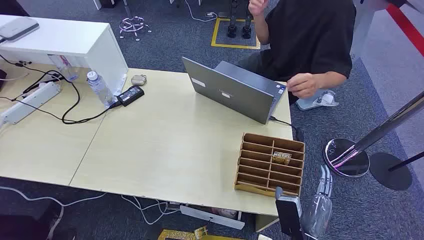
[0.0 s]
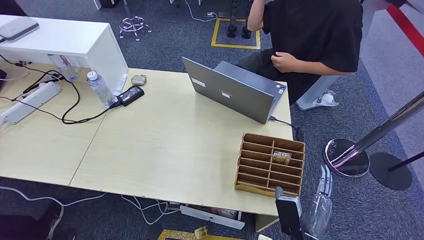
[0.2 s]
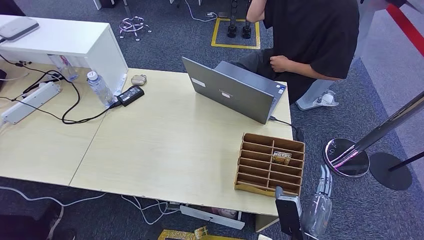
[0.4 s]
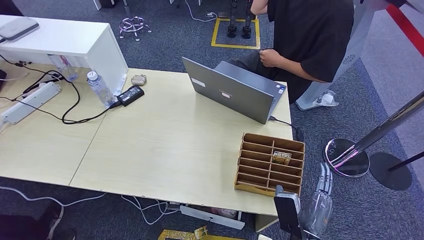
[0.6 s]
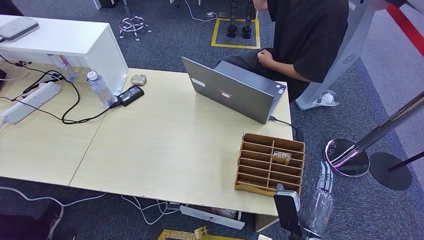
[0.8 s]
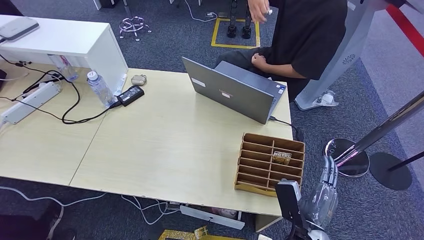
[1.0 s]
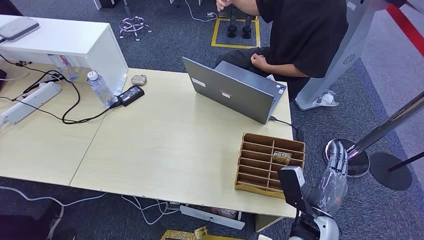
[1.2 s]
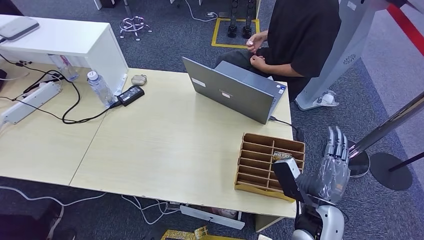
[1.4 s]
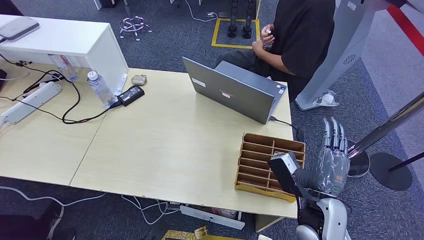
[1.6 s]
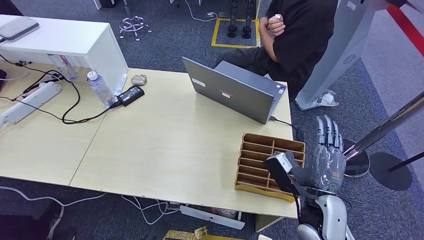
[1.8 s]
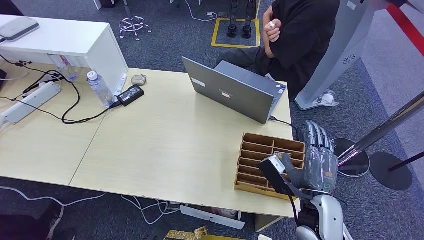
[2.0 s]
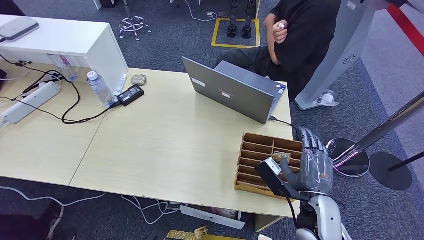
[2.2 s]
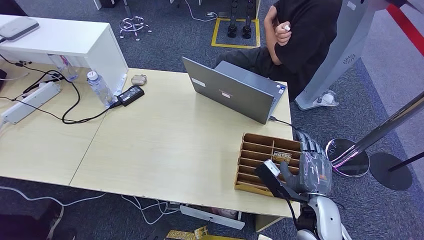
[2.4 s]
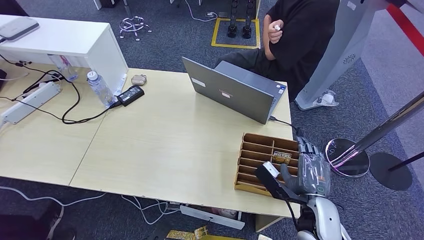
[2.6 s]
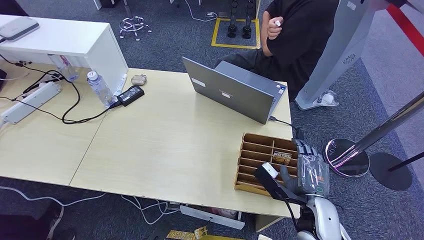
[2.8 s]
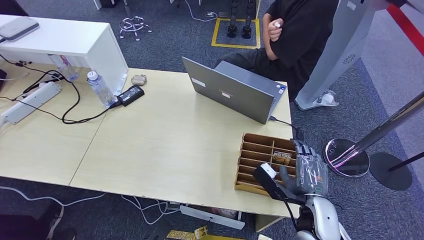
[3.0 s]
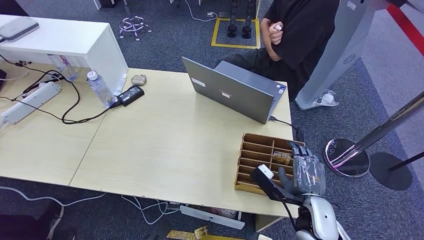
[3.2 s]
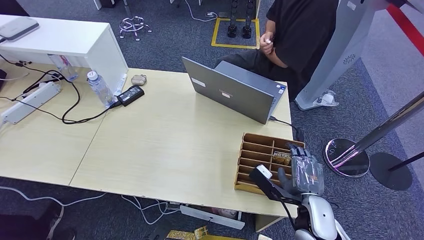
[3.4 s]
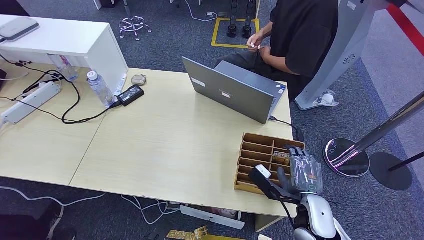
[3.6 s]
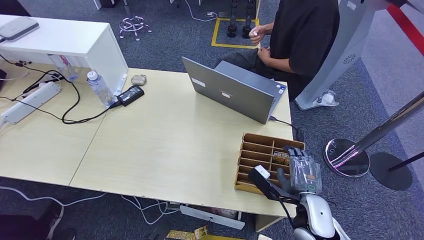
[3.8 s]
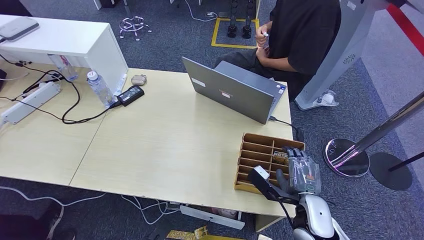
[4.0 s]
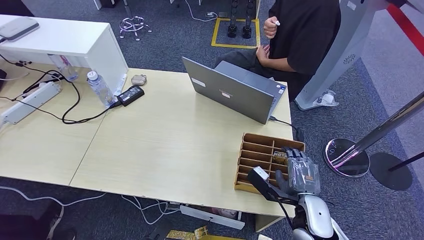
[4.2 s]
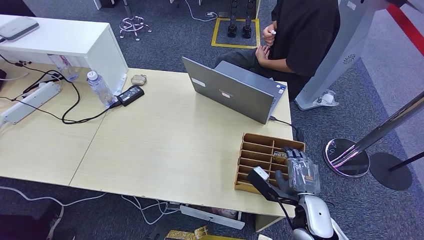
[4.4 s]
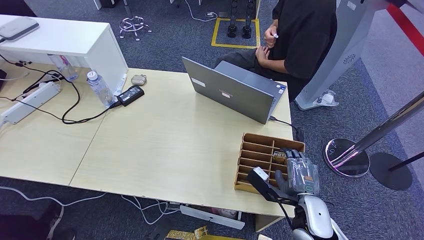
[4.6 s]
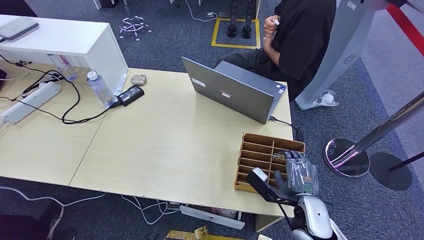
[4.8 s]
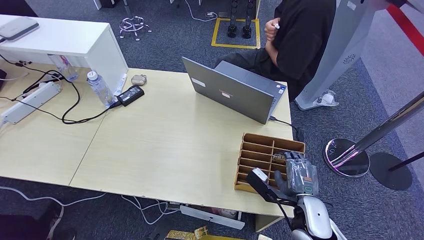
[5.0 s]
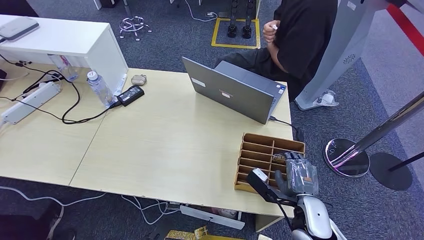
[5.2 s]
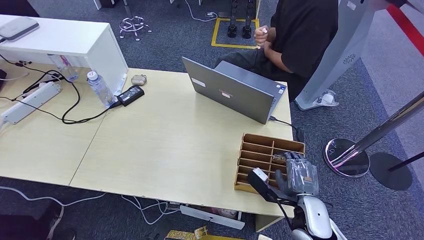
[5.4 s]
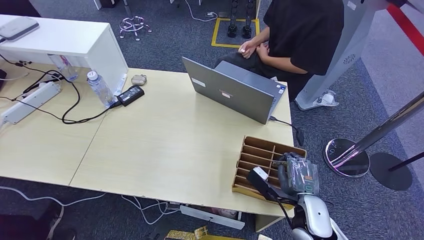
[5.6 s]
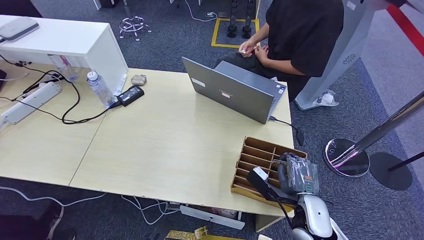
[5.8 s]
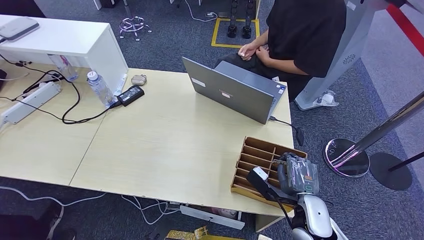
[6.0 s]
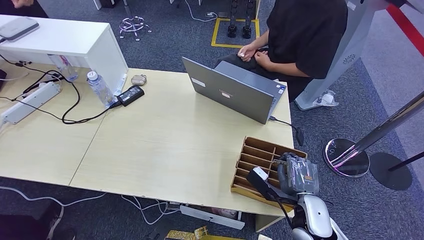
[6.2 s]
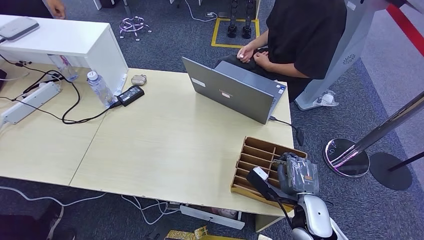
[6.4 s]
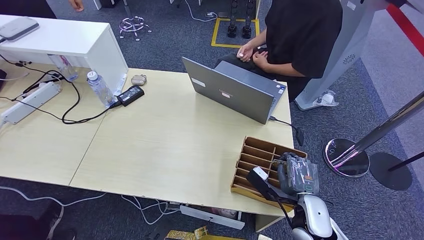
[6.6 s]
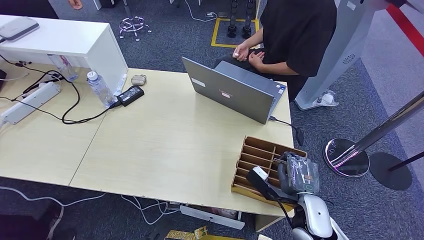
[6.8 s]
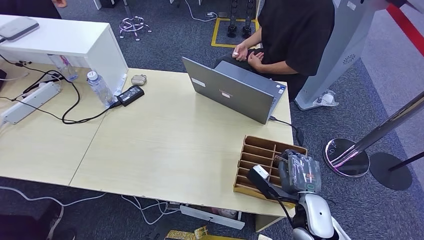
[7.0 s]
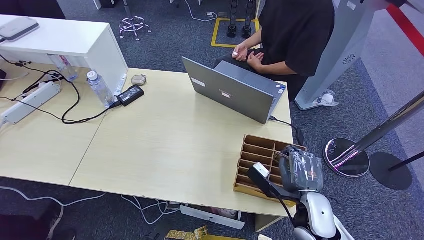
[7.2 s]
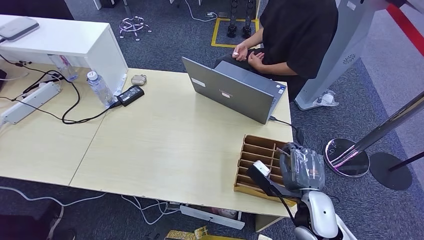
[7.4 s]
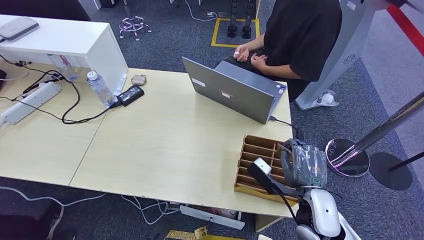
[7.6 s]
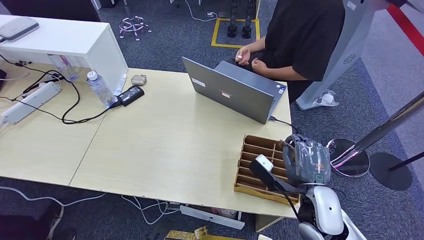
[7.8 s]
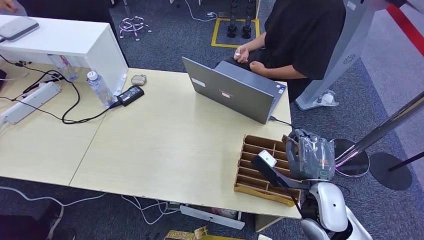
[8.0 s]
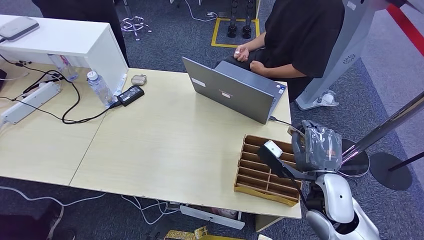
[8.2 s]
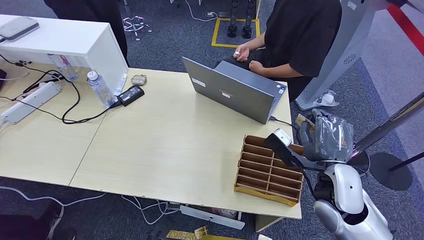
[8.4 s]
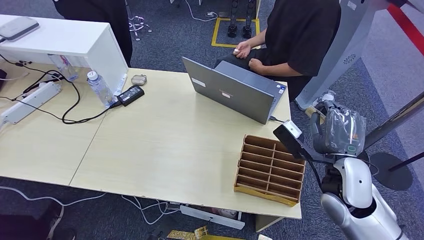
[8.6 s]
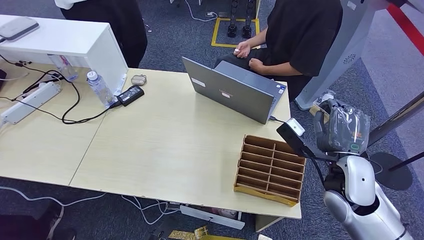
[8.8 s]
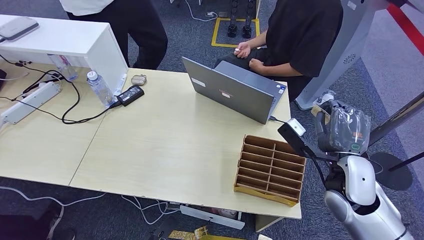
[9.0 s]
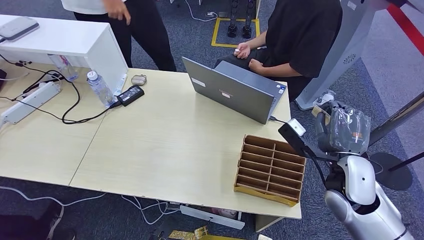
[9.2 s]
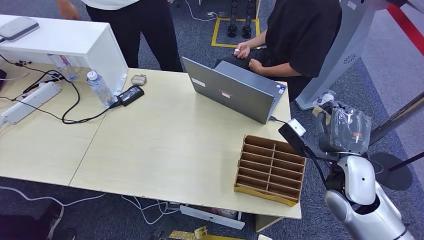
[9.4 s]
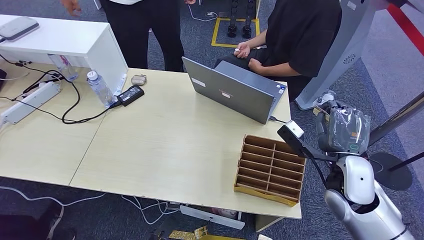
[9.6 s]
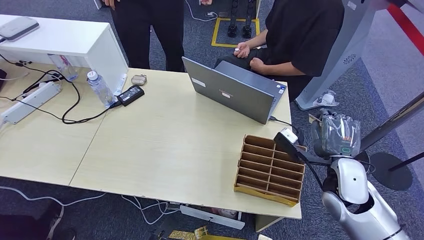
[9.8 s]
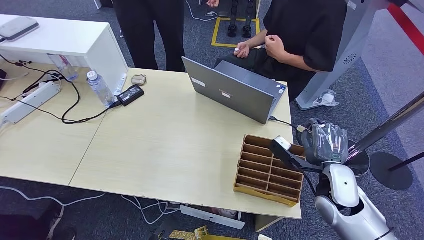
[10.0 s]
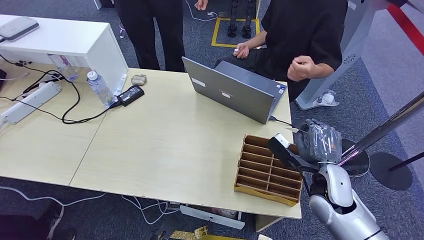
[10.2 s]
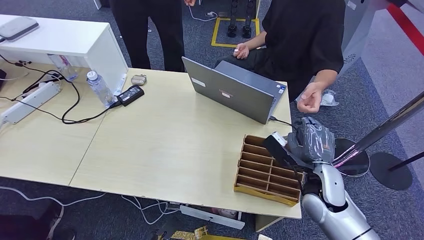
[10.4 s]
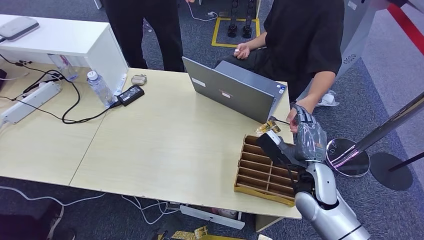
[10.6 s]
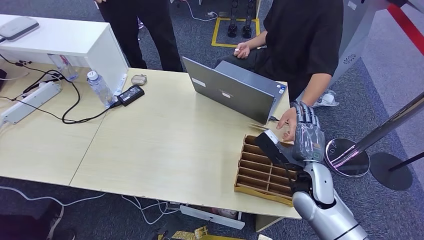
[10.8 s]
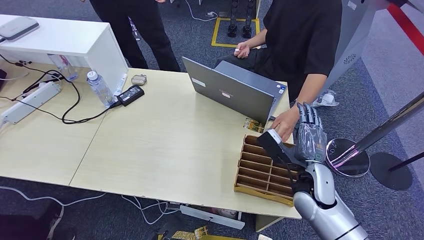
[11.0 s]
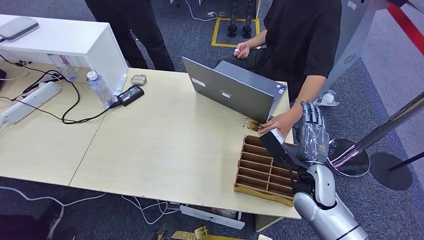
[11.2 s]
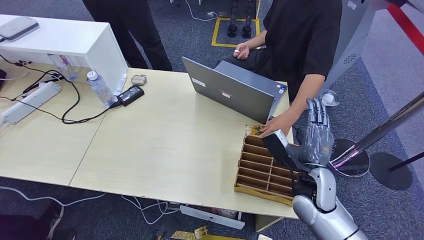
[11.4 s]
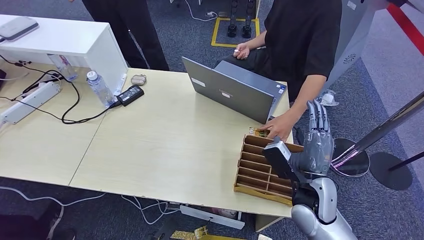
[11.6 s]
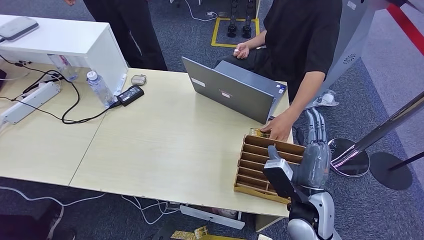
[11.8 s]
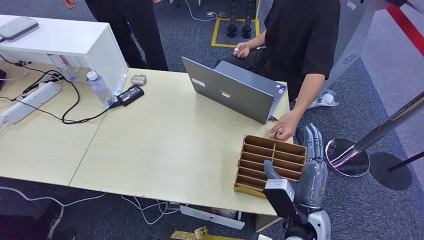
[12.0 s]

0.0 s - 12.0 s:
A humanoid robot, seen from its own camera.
Step, 0.0 s - 8.2 s: Pick up the room card from the card holder.
Step, 8.4 s - 12.0 s: Hand the room card to the target.
3.0 s - 4.4 s: The hands stay close to where they were, moving slightly.
4.4 s - 6.0 s: Both hands stay about where they are.
6.0 s - 7.6 s: The hands stay close to where they were, moving slightly.
7.6 s - 9.0 s: The right hand is displaced upward and forward by roughly 10 cm.
9.0 s - 10.4 s: The right hand heads downward, covering some 5 cm.
10.4 s - 12.0 s: The right hand moves backward, roughly 10 cm.
